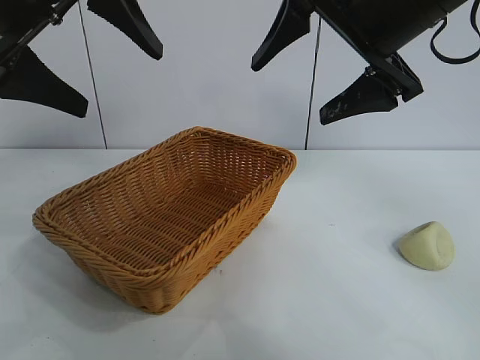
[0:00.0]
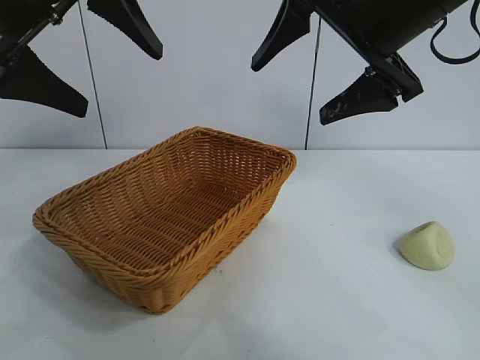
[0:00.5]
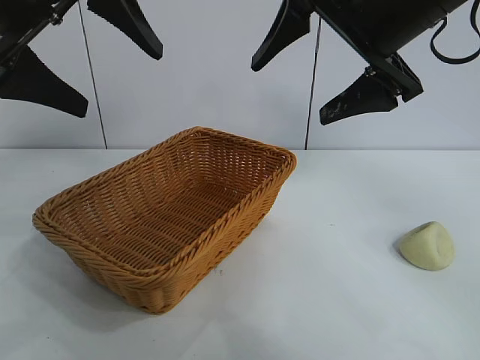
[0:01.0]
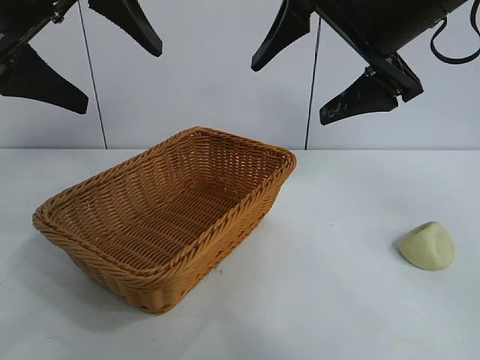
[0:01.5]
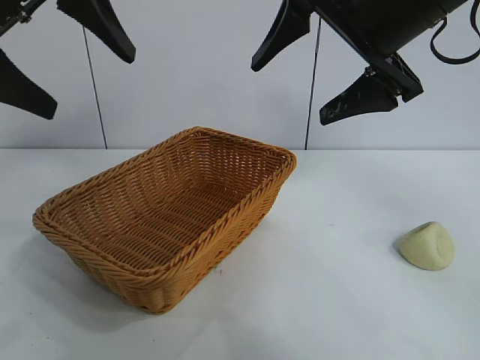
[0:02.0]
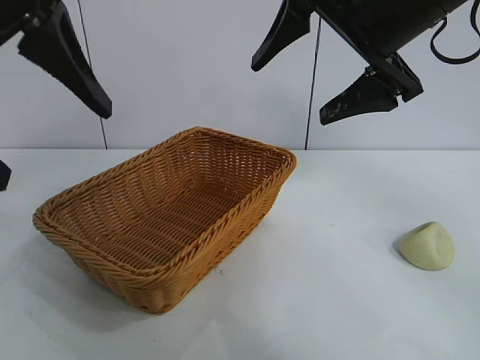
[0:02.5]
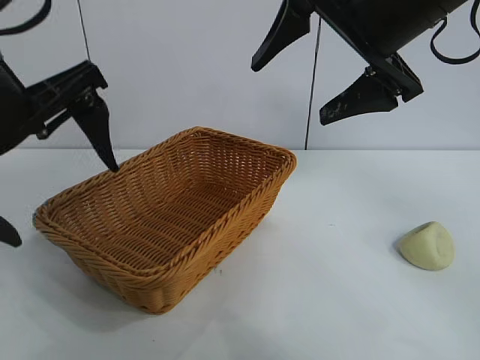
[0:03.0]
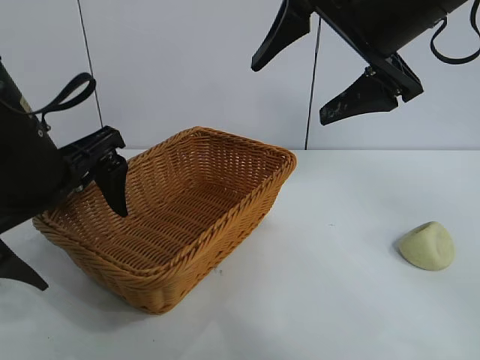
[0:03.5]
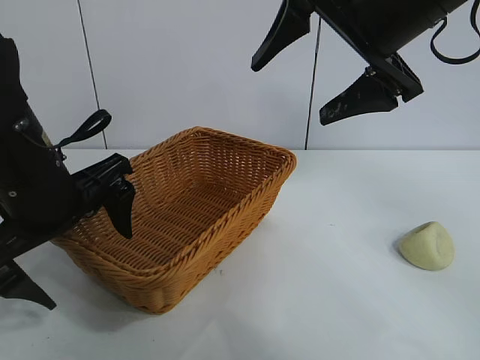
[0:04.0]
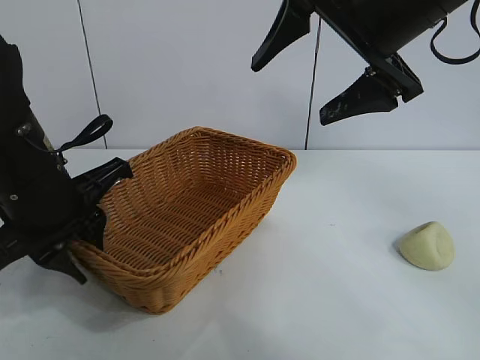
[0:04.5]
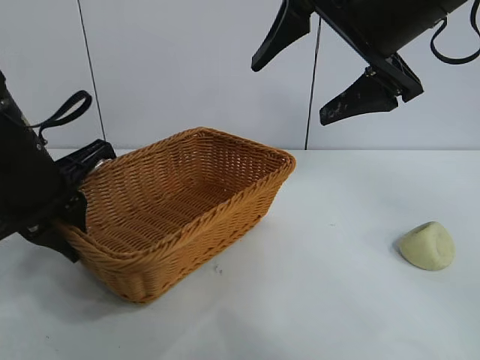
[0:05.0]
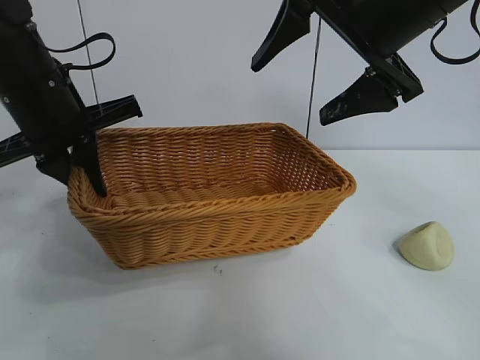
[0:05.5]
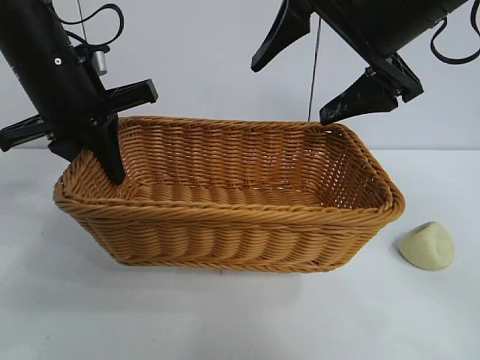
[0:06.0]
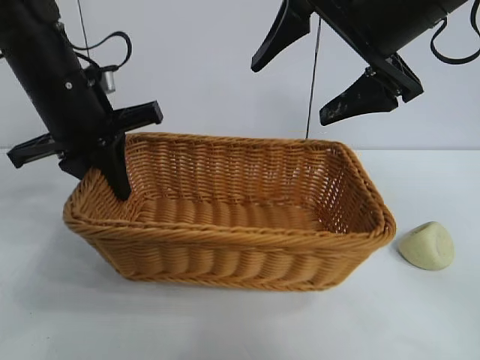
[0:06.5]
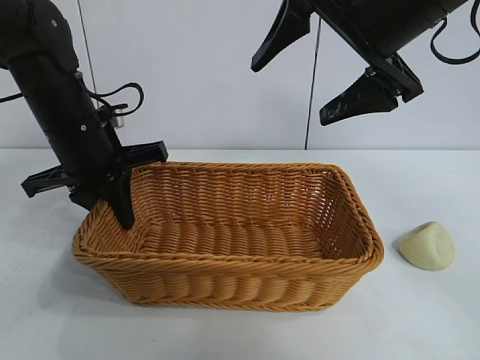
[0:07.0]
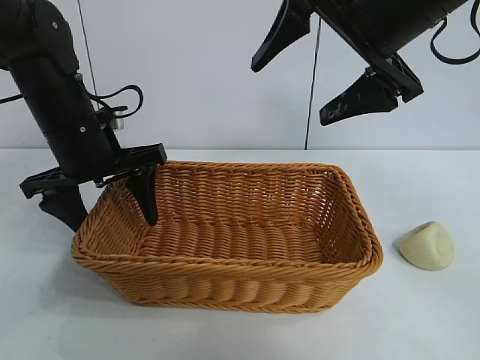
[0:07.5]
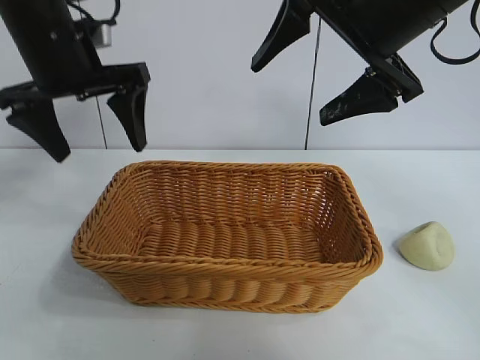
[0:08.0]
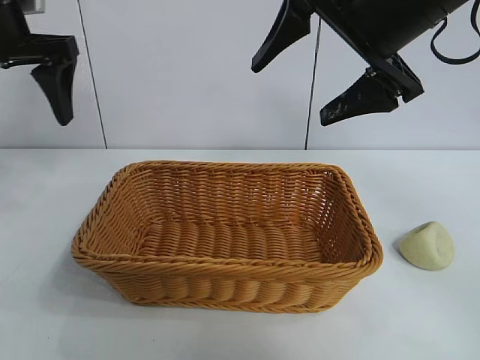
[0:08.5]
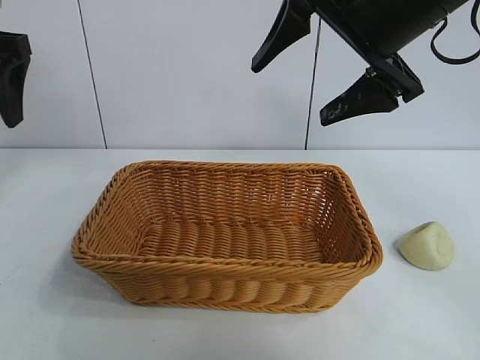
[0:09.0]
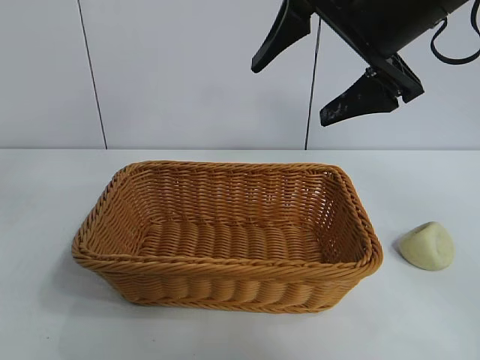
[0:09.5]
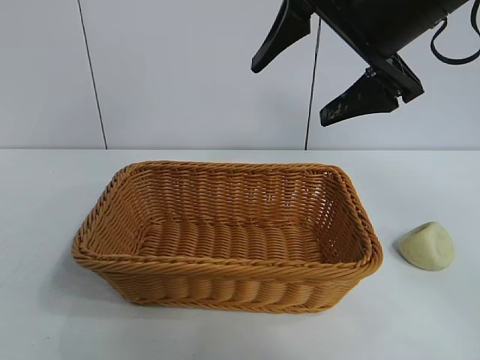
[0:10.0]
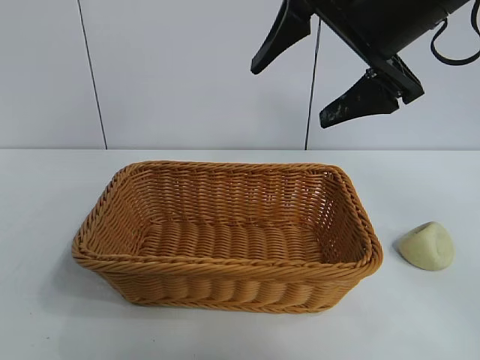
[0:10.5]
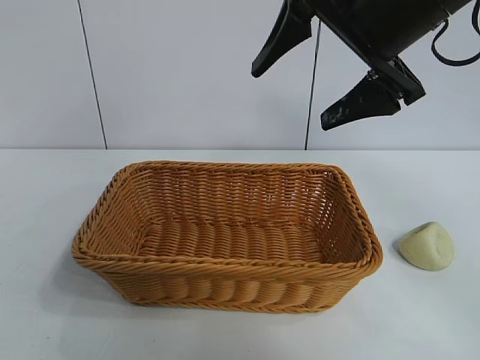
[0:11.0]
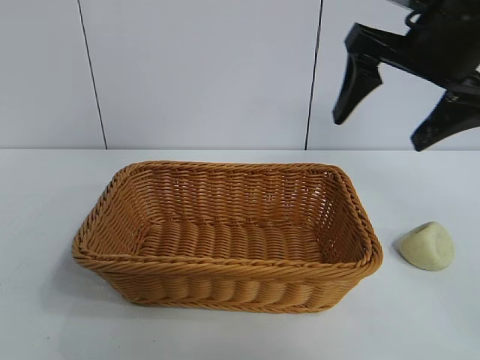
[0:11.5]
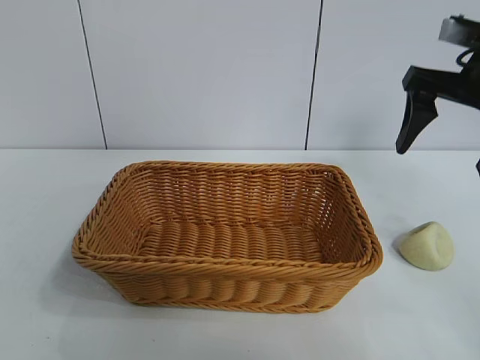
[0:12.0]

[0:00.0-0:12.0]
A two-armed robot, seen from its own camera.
Task of the whole recording: pick up the egg yolk pastry and put it into the basket.
Step, 0:01.5 to 0:04.5: Grasp the basket with left gripper.
Step, 0:05.0 to 0:07.5: Place the basket in the center of view with left gripper.

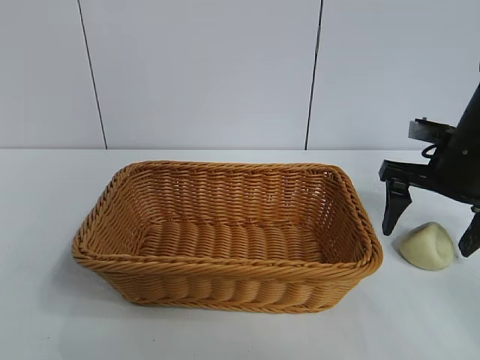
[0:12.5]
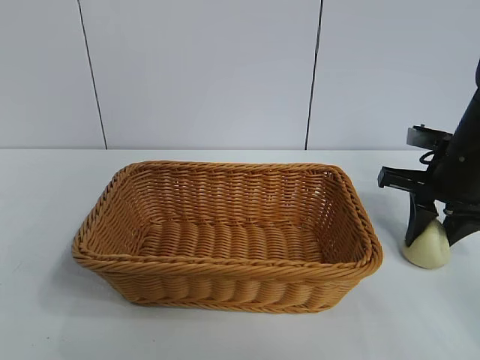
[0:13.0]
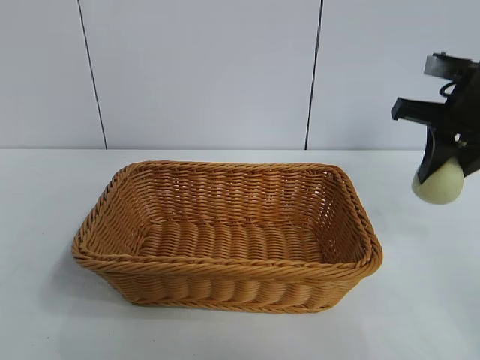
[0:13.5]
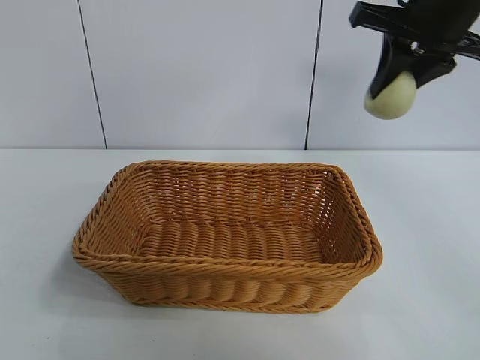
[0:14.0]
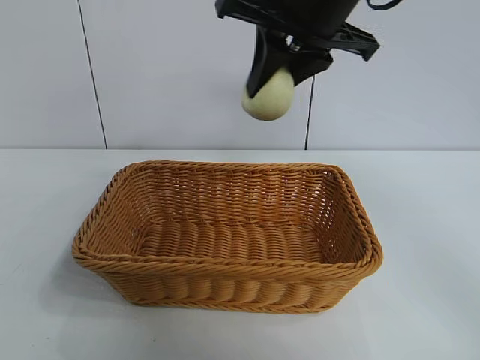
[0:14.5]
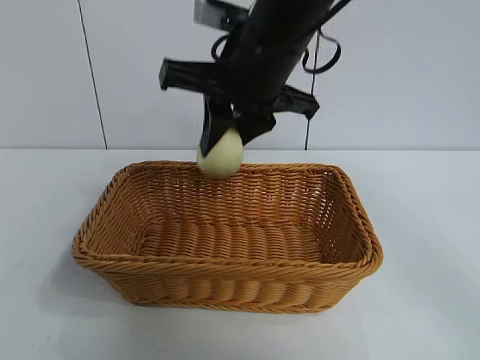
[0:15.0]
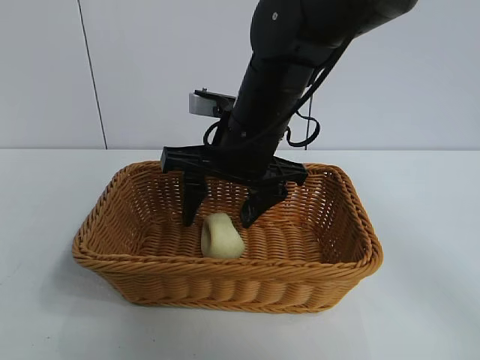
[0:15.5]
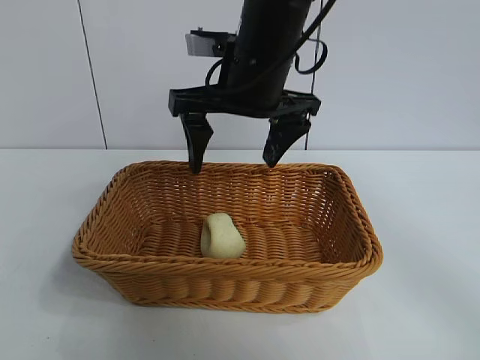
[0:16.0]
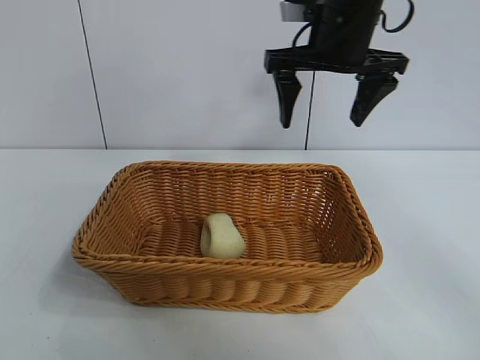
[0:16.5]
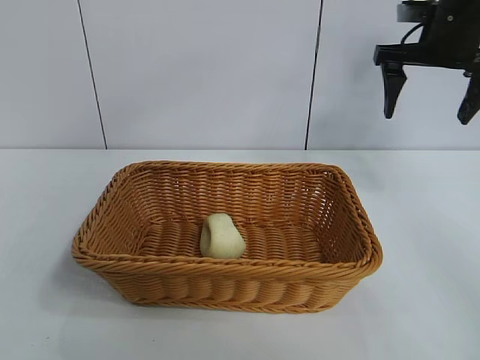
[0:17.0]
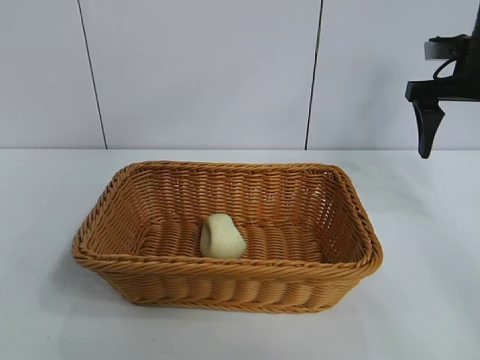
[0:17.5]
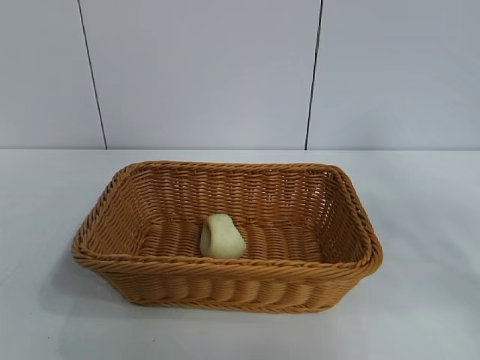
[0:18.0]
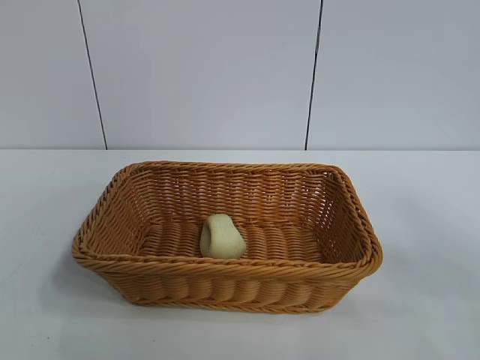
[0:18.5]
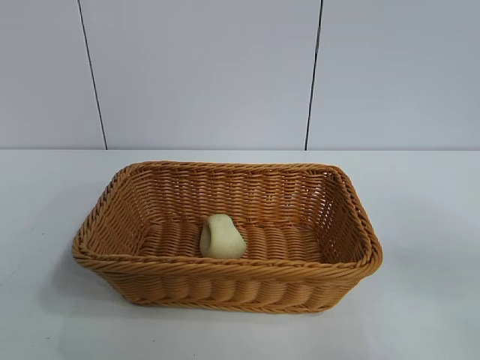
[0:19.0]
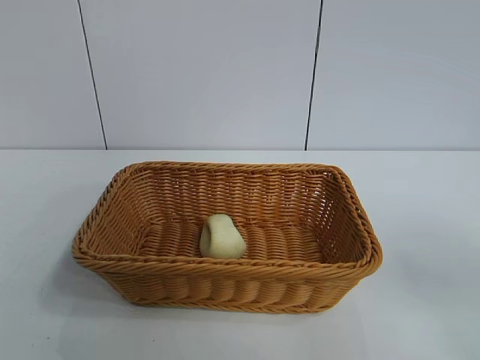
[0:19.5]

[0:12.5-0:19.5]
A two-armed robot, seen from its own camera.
Task of the whole recording: pick up the egg yolk pastry and put it into the basket.
Step, 0:13.5 to 0:15.5: Place the egg yolk pastry in the basket with right gripper.

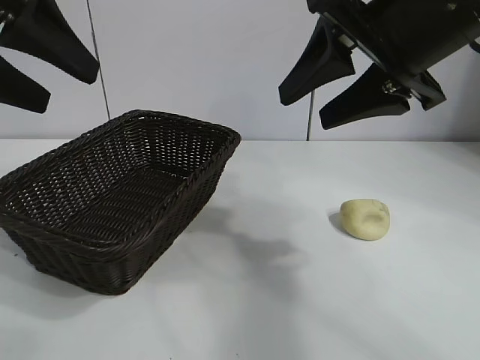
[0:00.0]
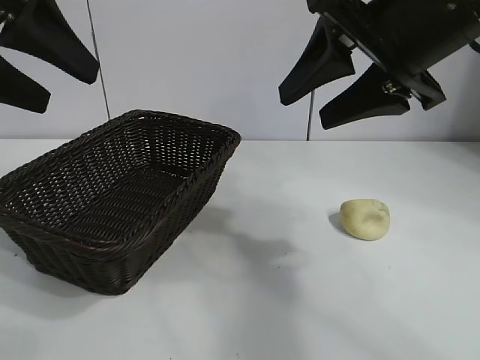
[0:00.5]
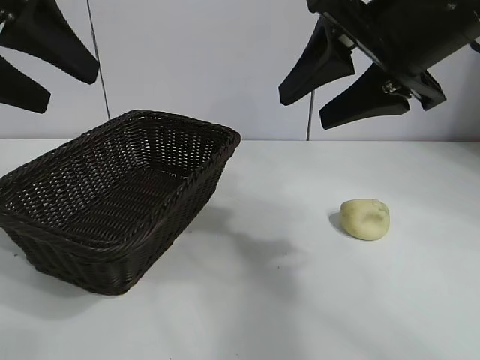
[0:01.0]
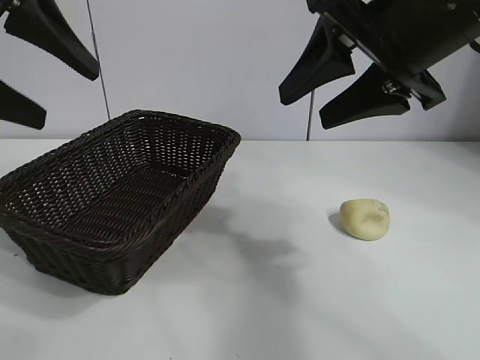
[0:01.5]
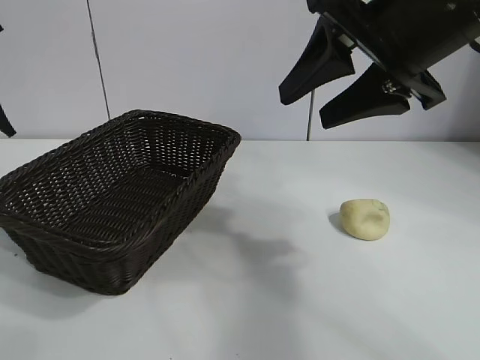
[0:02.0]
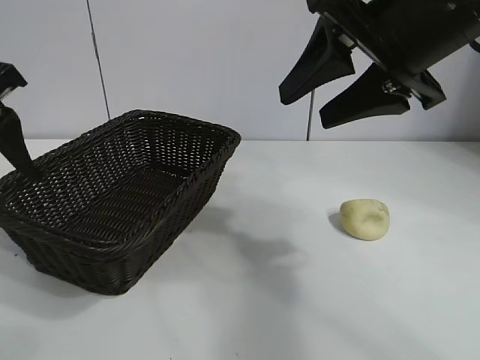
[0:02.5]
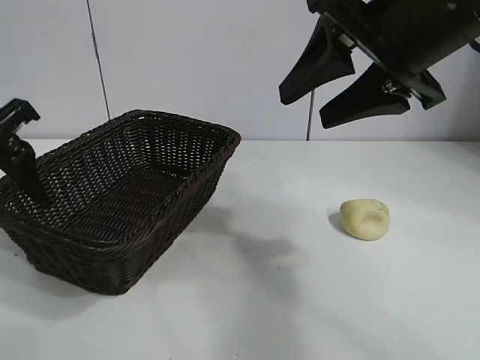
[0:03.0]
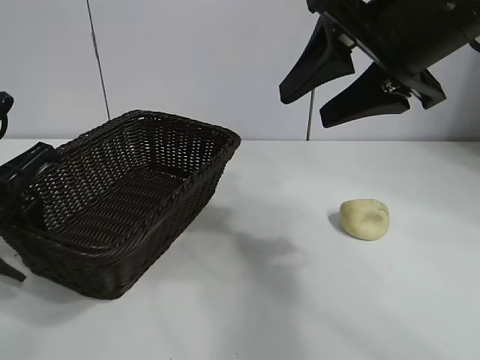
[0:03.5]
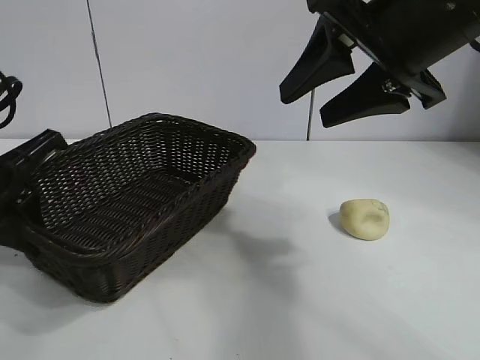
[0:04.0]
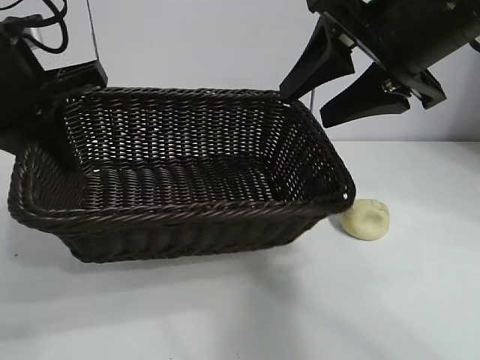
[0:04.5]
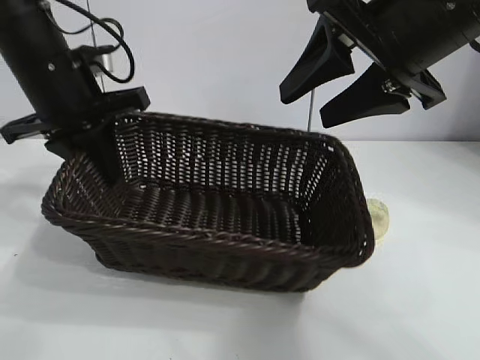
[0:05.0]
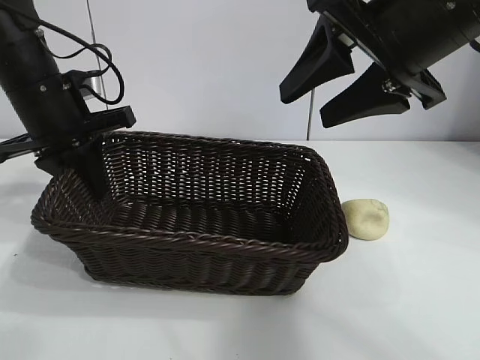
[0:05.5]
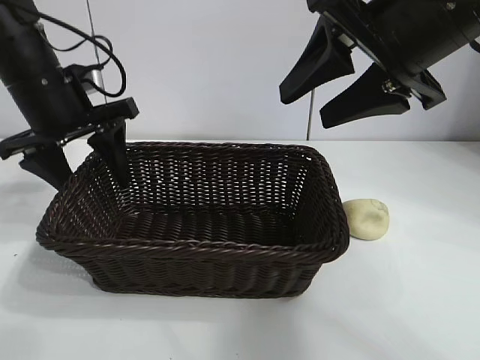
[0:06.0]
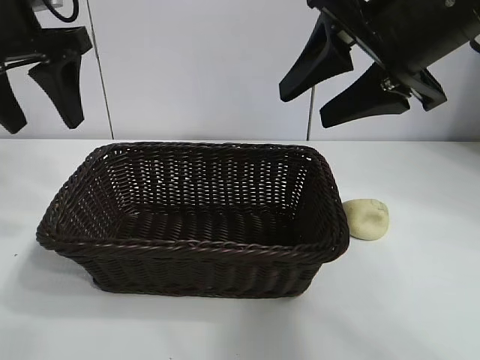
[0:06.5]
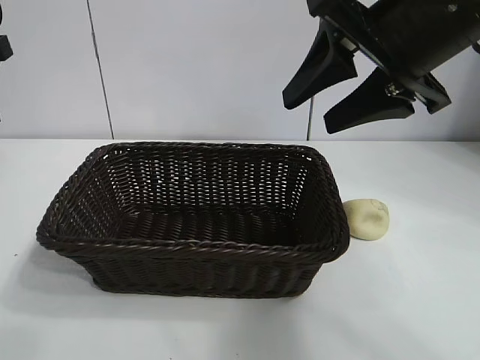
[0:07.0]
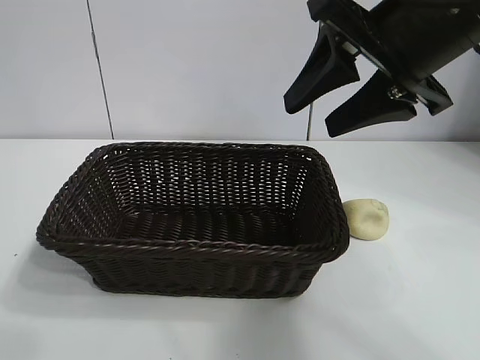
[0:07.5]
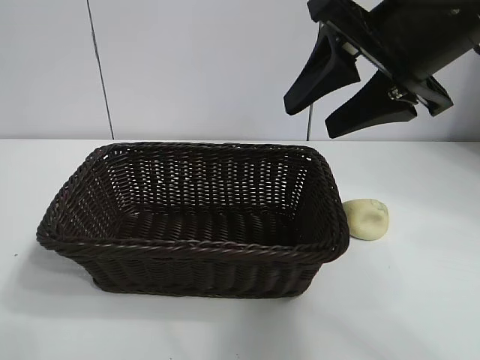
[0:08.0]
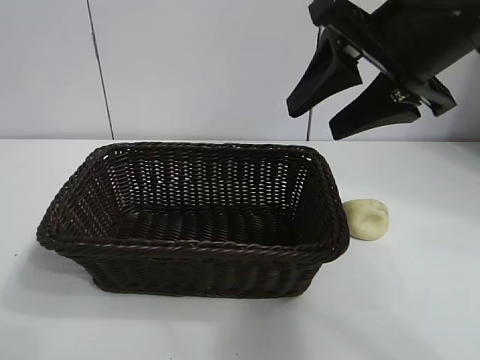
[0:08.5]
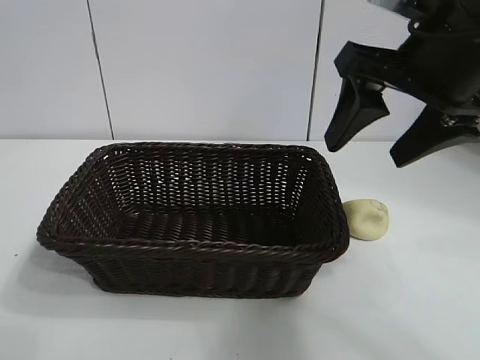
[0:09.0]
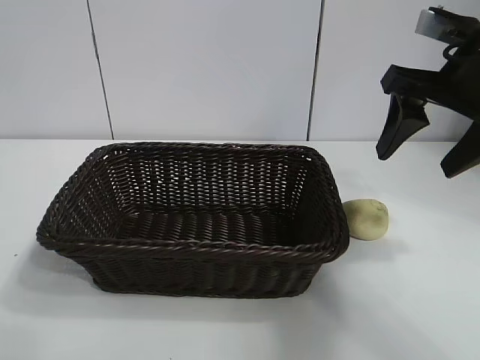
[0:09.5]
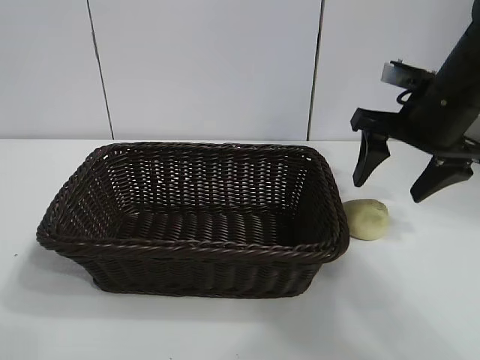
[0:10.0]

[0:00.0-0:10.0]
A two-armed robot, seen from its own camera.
Task of the whole recording: pick up the egg yolk pastry and put it into the basket.
Step, 0:01.5 to 0:03.5: Grasp the basket with left gripper.
Step, 0:04.0 to 0:06.0: Place the basket in the center of view with left gripper.
